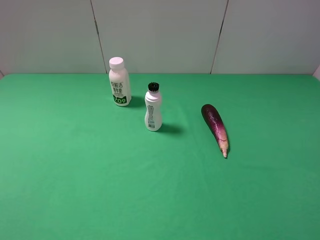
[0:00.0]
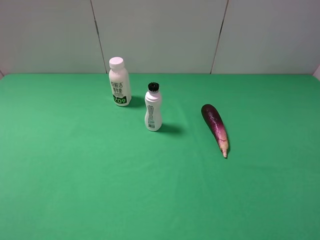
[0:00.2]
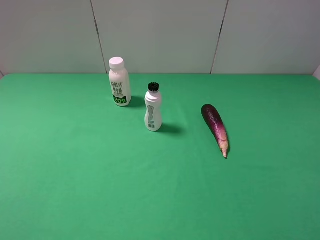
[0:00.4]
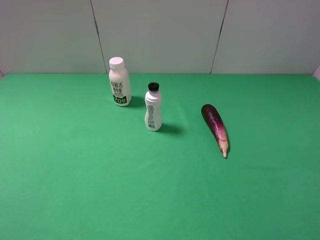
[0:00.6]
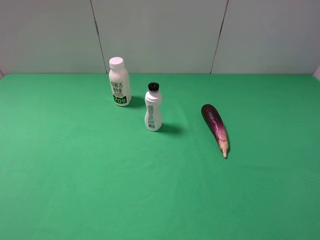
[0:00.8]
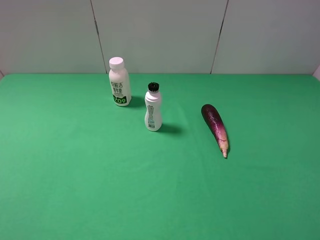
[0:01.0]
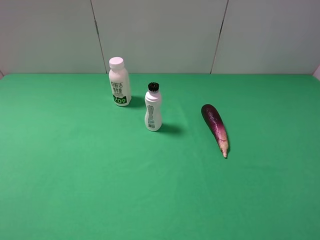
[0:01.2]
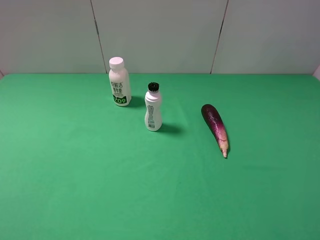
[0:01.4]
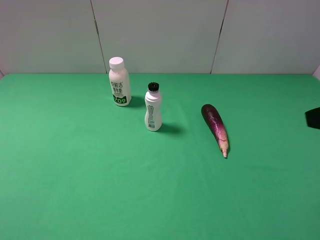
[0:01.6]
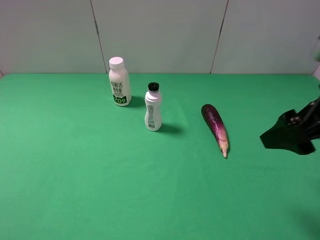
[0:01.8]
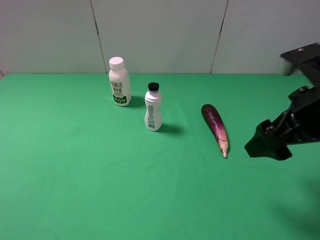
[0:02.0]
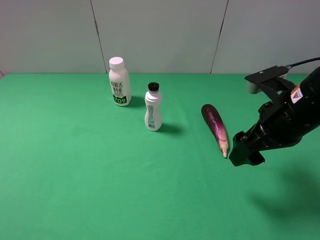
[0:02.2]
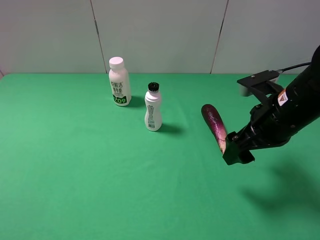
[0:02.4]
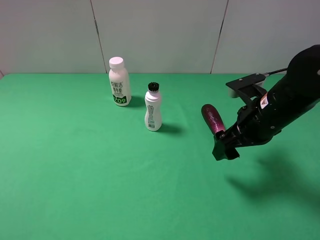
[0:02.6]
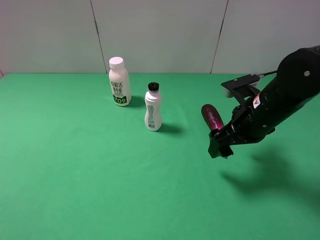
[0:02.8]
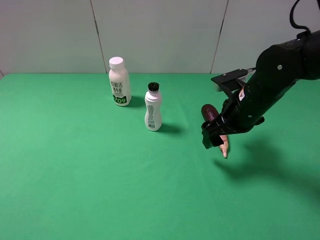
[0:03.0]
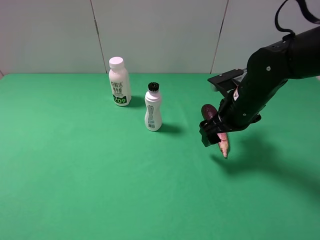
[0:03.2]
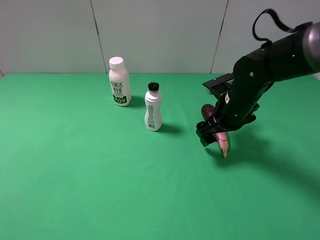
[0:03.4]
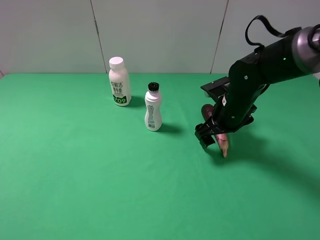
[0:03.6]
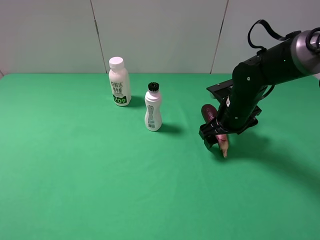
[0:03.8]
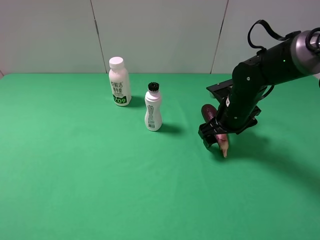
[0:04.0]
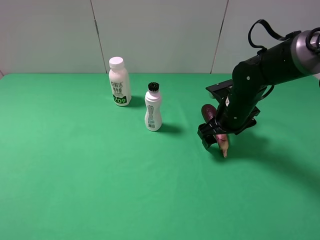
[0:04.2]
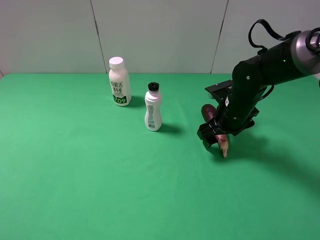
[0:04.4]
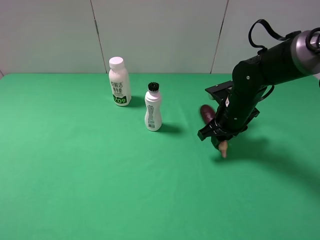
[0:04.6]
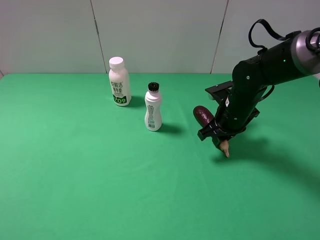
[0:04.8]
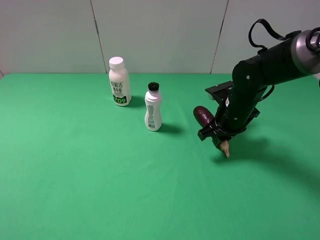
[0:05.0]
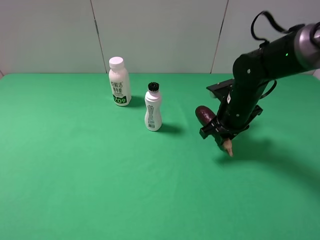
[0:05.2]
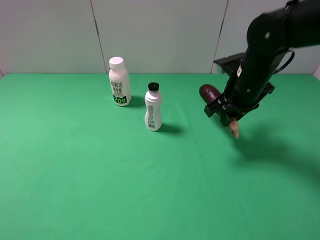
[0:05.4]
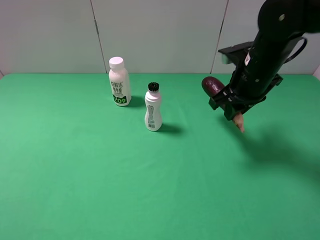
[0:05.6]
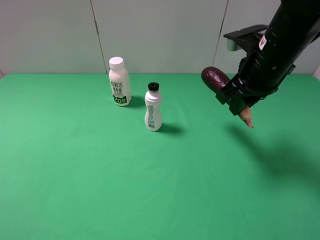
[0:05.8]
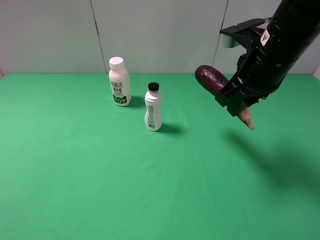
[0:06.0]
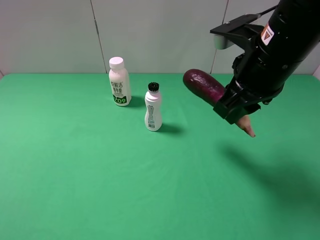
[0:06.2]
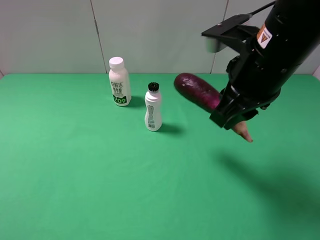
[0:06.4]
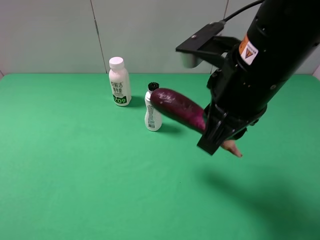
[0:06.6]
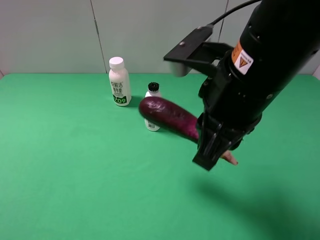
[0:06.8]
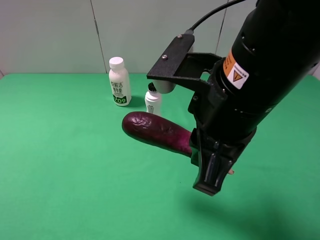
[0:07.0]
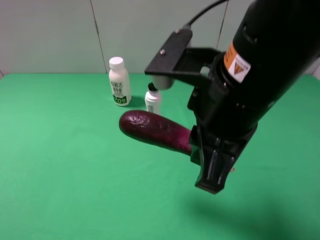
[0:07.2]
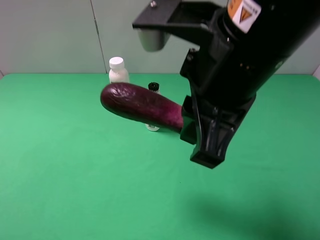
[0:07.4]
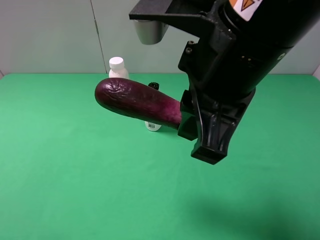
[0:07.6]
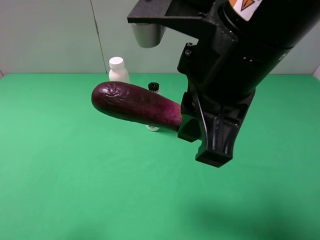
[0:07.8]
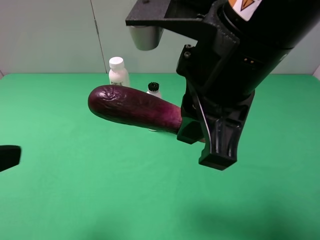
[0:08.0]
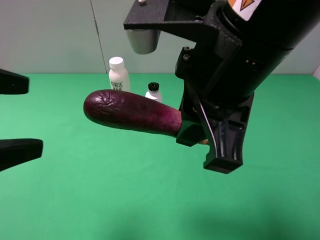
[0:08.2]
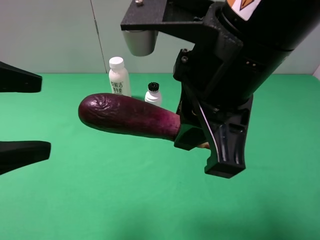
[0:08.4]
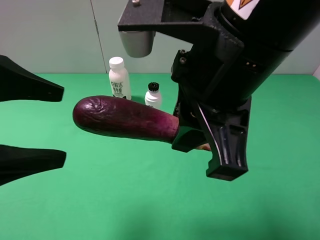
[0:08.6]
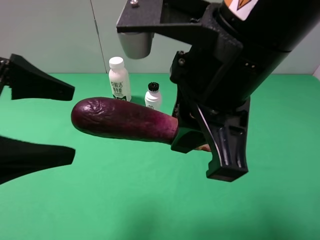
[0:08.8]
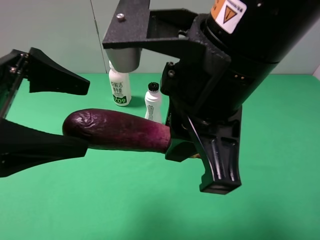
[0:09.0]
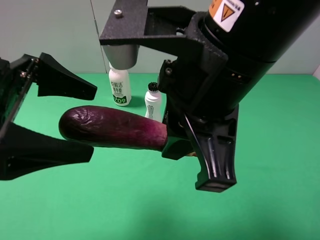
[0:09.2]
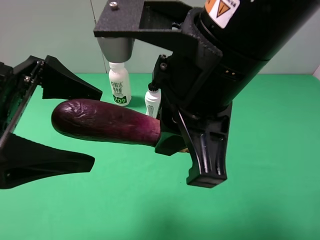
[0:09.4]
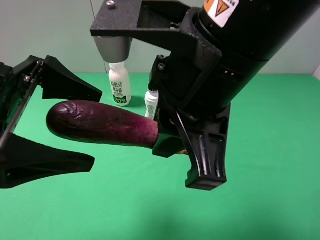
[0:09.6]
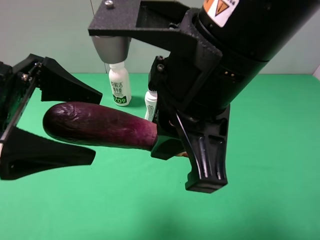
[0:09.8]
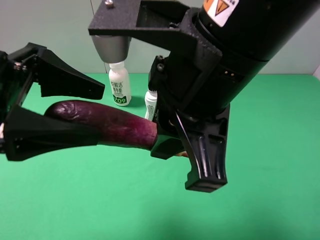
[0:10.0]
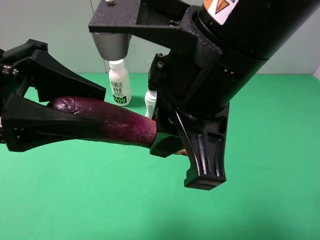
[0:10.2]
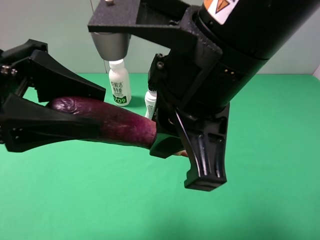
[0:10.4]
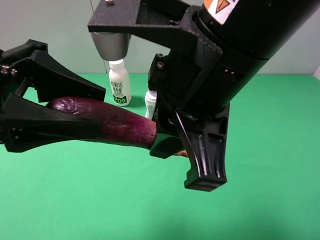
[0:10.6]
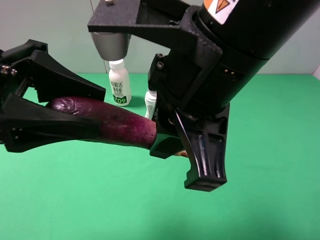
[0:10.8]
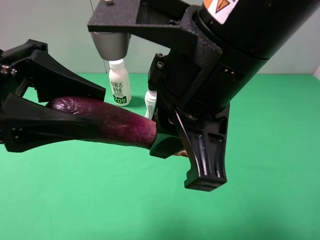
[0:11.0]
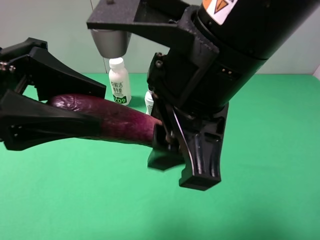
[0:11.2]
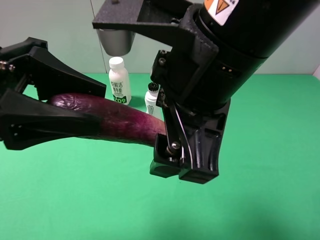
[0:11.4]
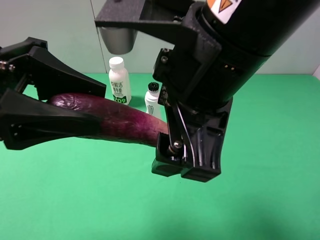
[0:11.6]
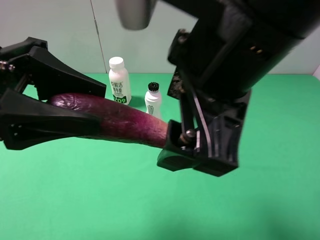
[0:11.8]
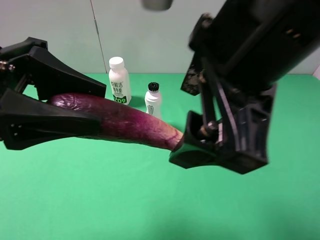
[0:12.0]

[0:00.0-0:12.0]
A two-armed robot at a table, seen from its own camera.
Task of the whole recording: use the right gripper to pick up the item and transfer it from the right gripper to the left gripper.
Step, 0:05.0 to 0:11.0: Pass the eggplant to the left gripper.
0:01.6 to 0:03.0: The right gripper is displaced forward, downward and to the left by about 25 cm.
0:03.0 to 0:04.4: The right gripper shifts by roughly 5 cm.
0:04.4 to 0:06.0: The right gripper shifts some 15 cm upward and backward, and closes.
0:06.0 to 0:07.6: The right gripper goes roughly 15 cm backward, to the left and upward.
0:07.6 to 0:09.0: The left gripper is displaced forward and to the right by about 15 cm.
0:09.0 to 0:10.4: The left gripper closes up.
0:10.4 to 0:12.0: The right gripper ends up about 5 cm from where it was, and opens.

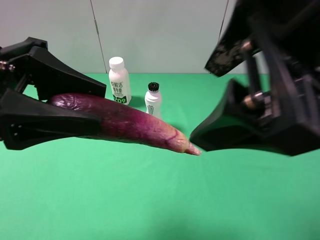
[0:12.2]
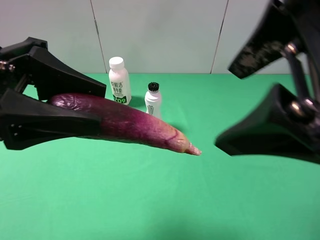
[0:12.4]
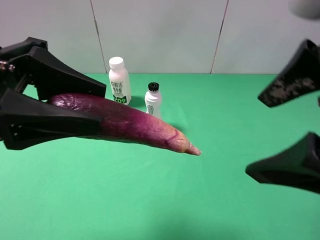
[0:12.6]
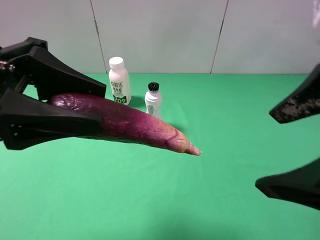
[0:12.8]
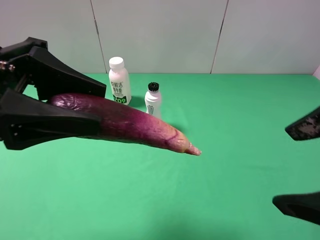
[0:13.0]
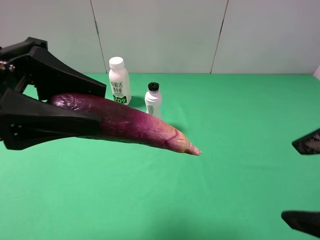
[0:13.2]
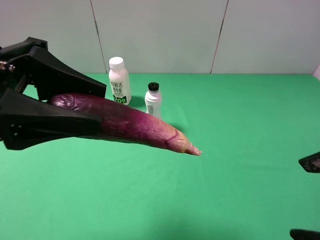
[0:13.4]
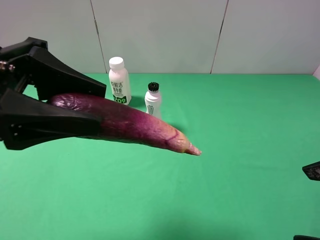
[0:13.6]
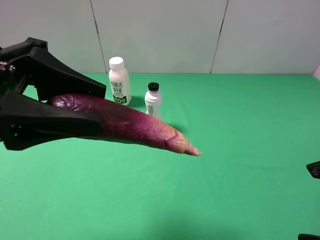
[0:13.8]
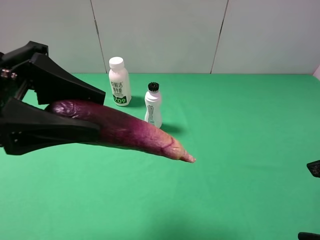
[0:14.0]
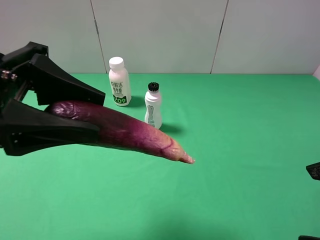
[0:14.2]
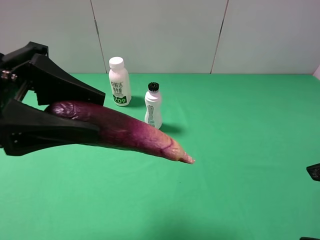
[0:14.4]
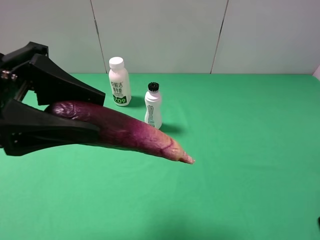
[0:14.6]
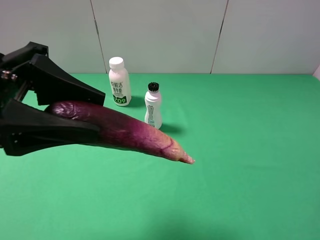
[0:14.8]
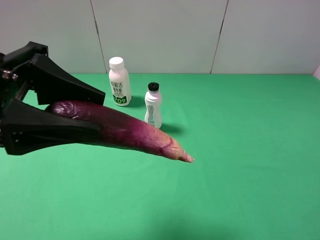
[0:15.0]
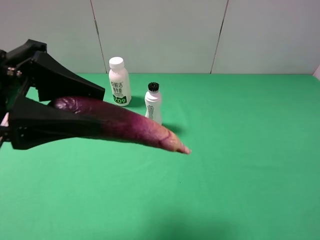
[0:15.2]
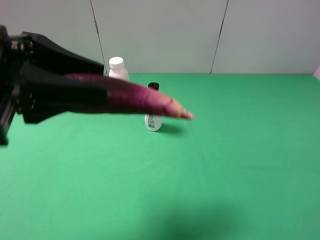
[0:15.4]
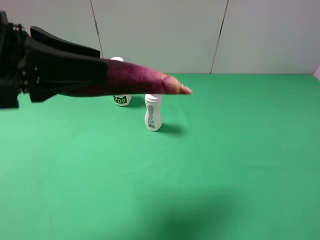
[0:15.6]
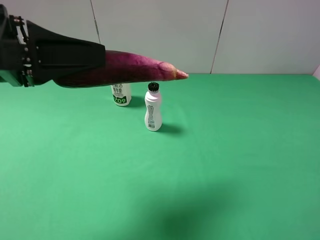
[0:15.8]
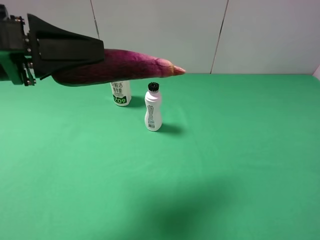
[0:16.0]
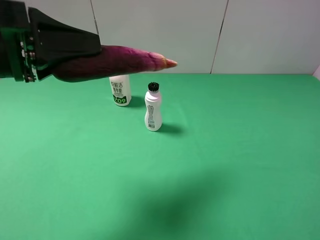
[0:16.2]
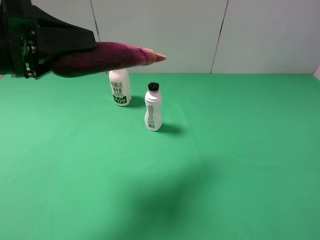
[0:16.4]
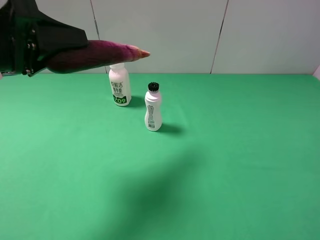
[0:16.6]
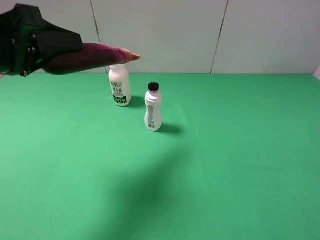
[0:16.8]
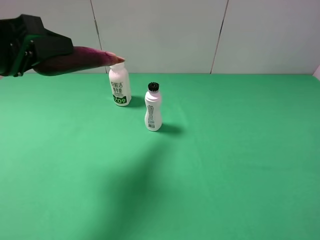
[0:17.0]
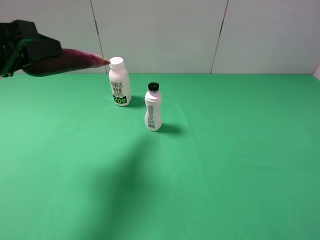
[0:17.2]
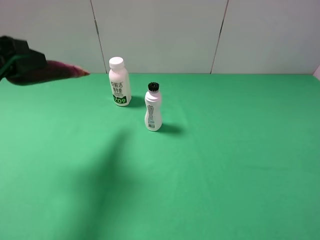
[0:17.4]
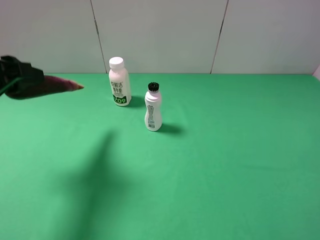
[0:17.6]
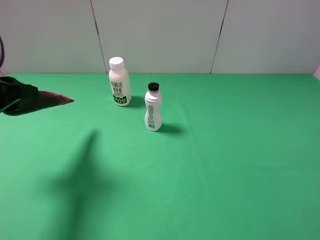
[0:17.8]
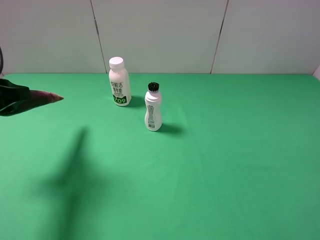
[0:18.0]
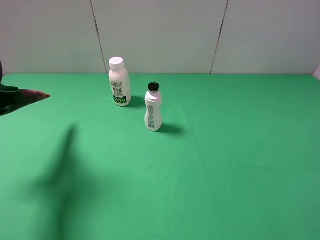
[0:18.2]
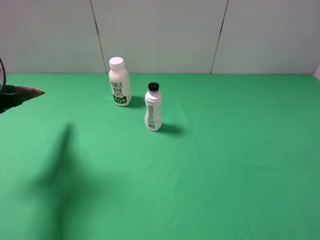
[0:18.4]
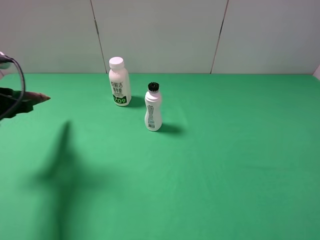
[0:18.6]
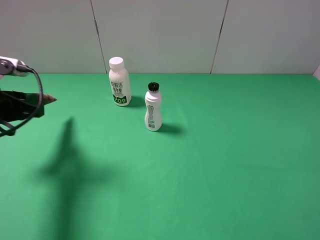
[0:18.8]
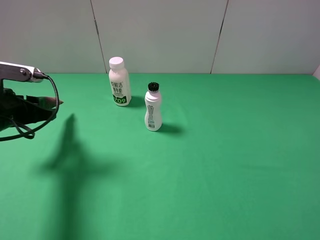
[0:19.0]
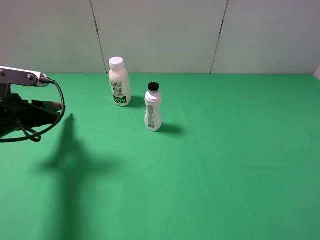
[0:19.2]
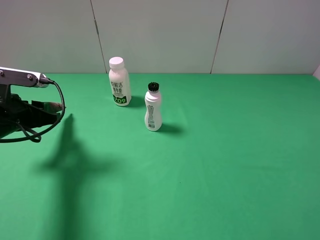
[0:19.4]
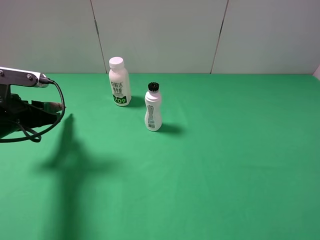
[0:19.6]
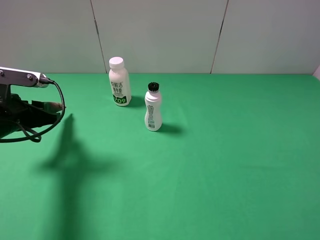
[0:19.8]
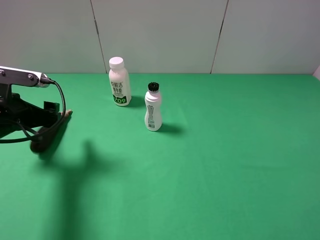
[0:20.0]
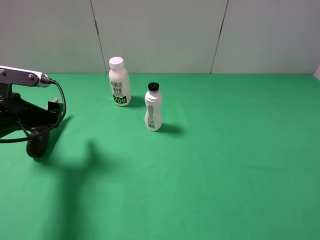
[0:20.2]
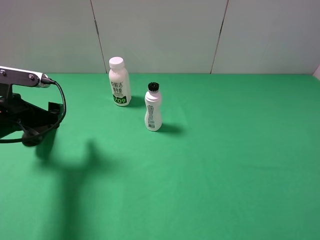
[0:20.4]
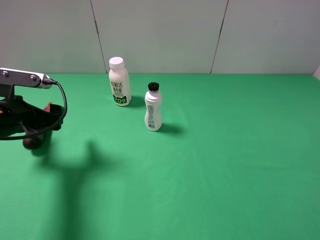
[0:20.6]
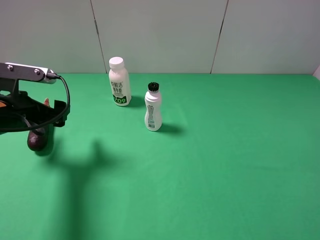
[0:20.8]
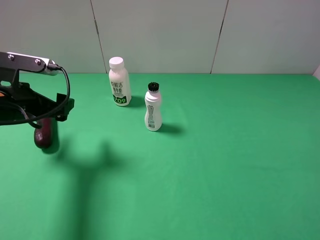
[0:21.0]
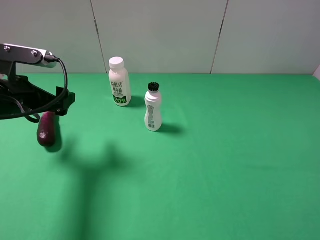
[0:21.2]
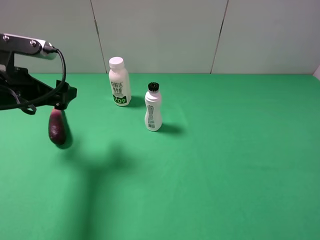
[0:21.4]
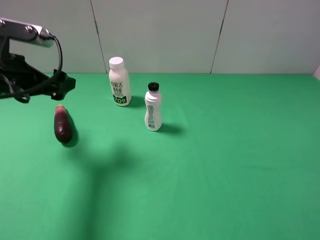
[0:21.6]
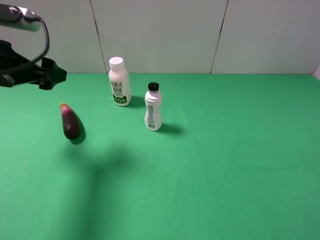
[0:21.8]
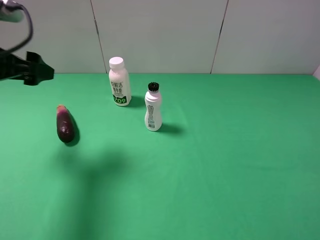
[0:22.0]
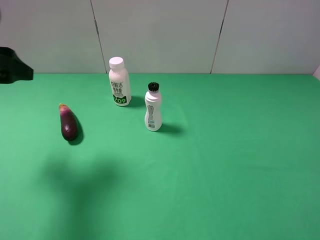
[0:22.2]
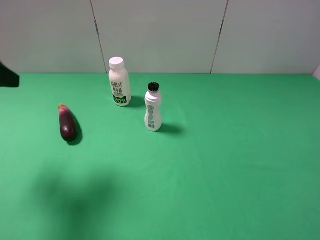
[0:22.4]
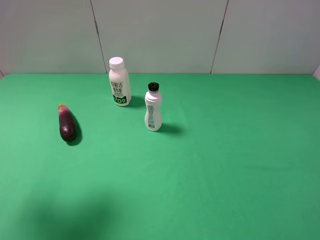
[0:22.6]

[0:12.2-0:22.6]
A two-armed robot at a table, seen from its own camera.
Task of the whole recording: use the right gripper to pick up the item and transfer it from the right gripper to the left gripper.
Step, 0:12.2 to 0:20.2: The left gripper places eggplant on the left side of the table.
0:12.2 to 0:13.6: The right gripper heads to the right, downward and backward, covering about 20 cm.
0:13.6 to 0:15.2: The right gripper travels to the right by approximately 5 cm.
0:15.2 to 0:16.6: The left gripper ends up about 5 cm from where it was.
0:16.6 to 0:18.2: The left gripper travels to the left and downward by roughly 10 cm.
0:18.2 to 0:19.6: The left gripper is displaced downward by some 5 cm.
0:19.6 to 0:21.2: The left gripper opens.
0:21.2 to 0:22.6: The left gripper heads upward, backward and to the left, covering approximately 15 cm.
